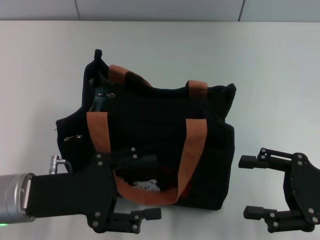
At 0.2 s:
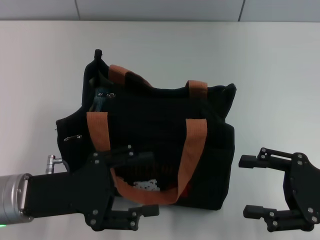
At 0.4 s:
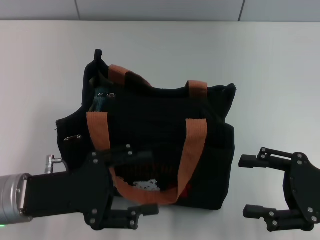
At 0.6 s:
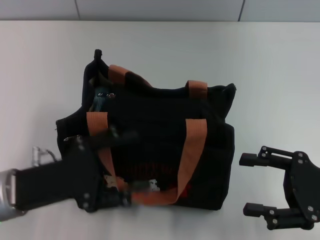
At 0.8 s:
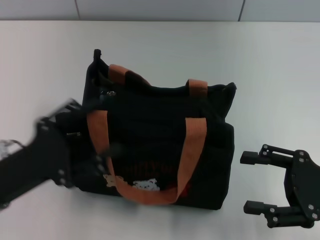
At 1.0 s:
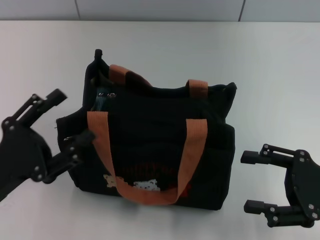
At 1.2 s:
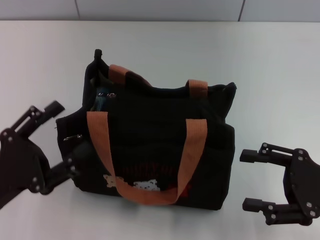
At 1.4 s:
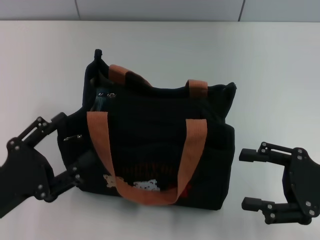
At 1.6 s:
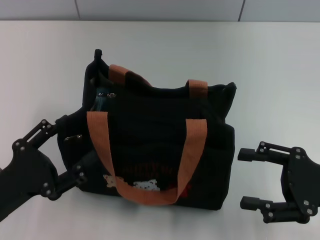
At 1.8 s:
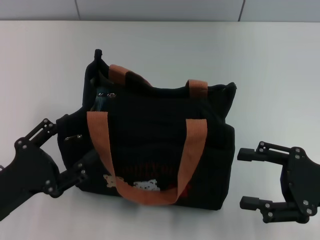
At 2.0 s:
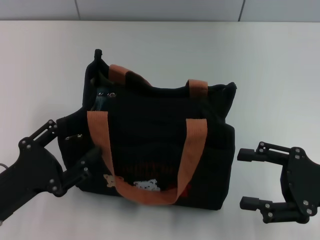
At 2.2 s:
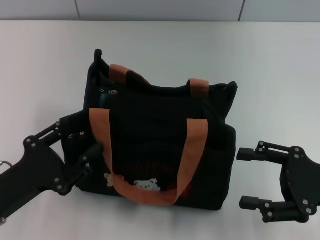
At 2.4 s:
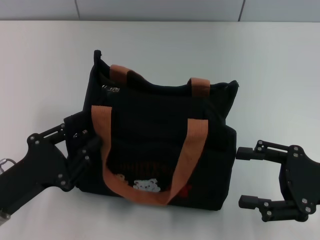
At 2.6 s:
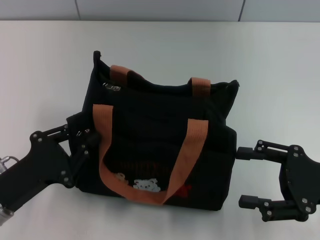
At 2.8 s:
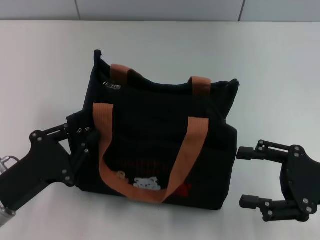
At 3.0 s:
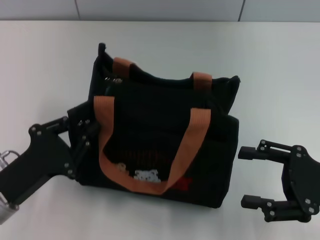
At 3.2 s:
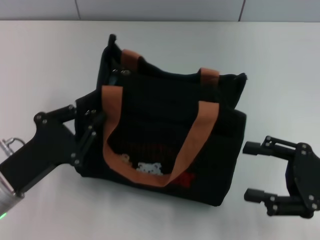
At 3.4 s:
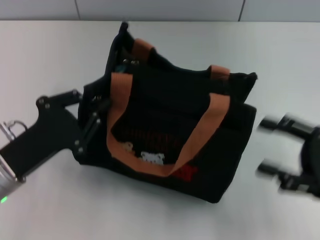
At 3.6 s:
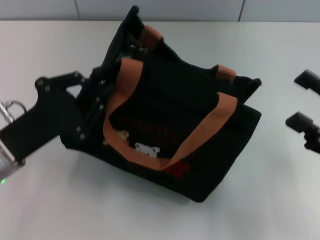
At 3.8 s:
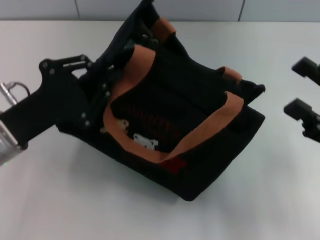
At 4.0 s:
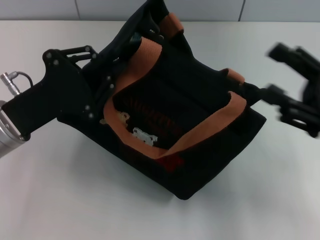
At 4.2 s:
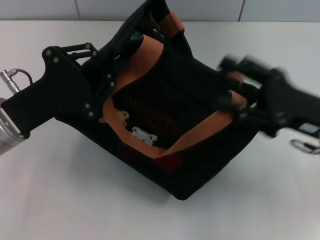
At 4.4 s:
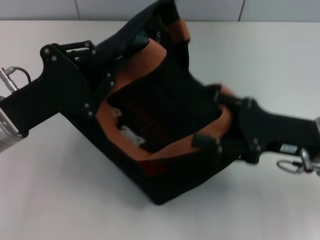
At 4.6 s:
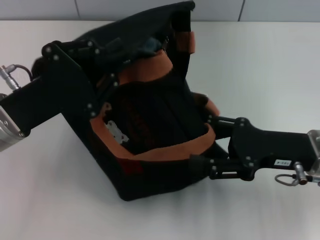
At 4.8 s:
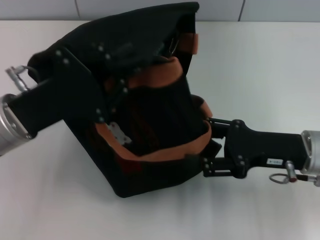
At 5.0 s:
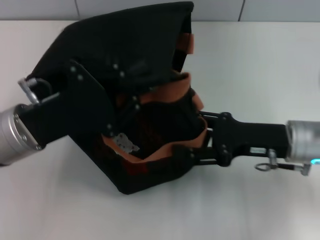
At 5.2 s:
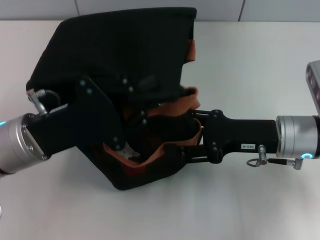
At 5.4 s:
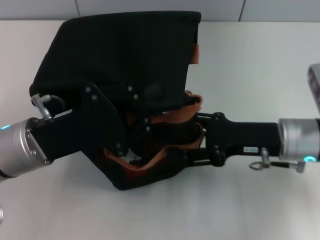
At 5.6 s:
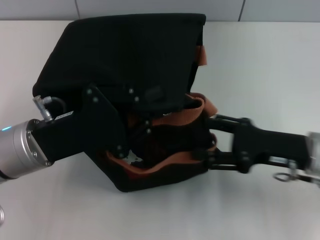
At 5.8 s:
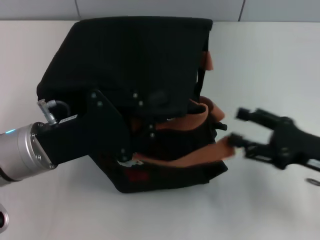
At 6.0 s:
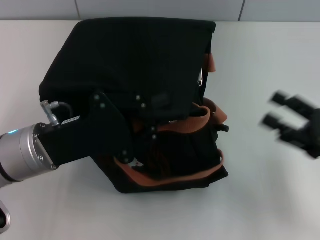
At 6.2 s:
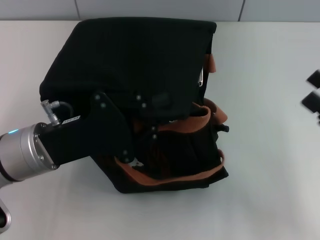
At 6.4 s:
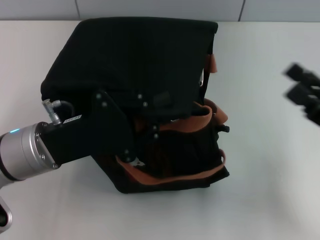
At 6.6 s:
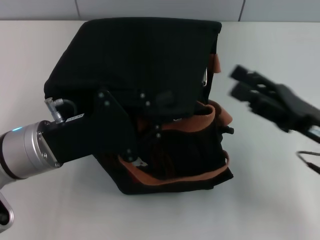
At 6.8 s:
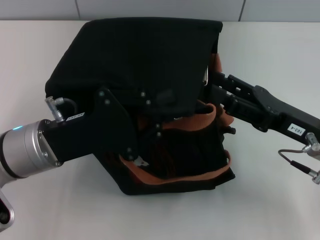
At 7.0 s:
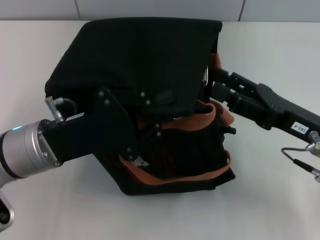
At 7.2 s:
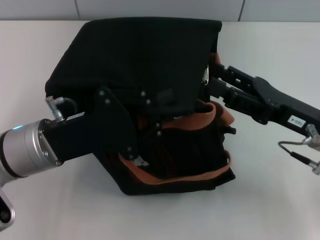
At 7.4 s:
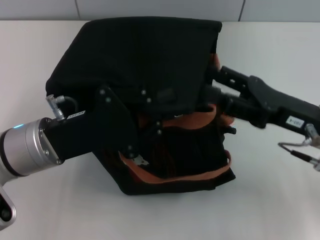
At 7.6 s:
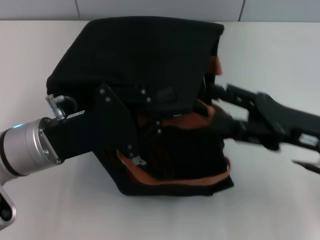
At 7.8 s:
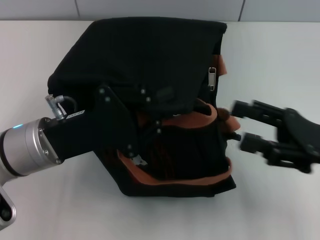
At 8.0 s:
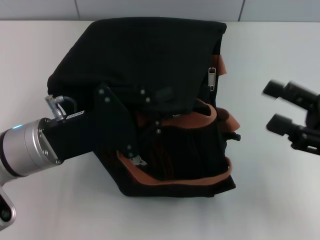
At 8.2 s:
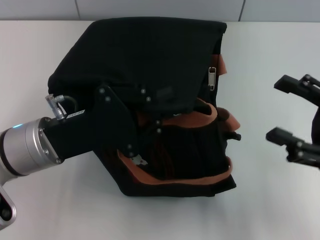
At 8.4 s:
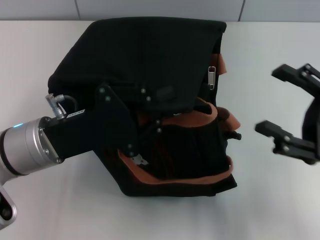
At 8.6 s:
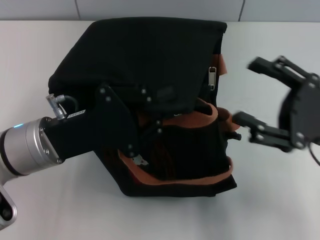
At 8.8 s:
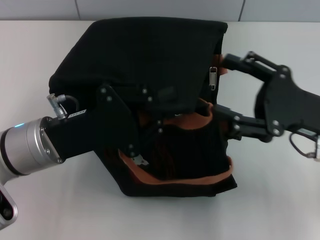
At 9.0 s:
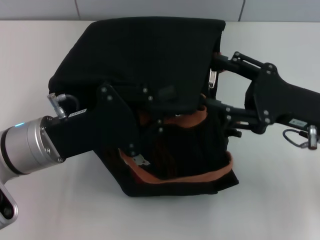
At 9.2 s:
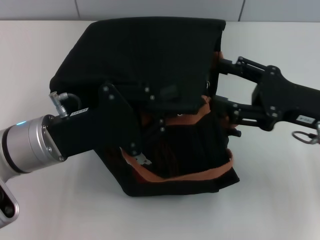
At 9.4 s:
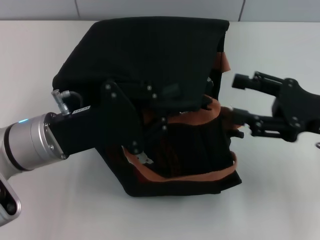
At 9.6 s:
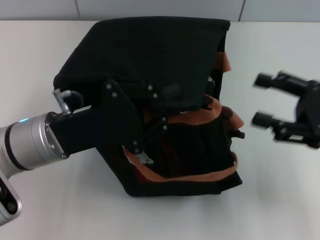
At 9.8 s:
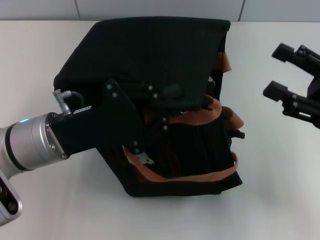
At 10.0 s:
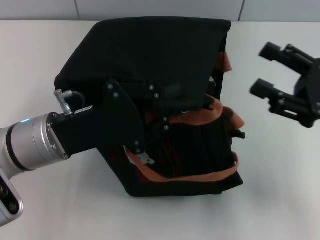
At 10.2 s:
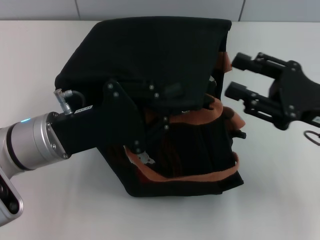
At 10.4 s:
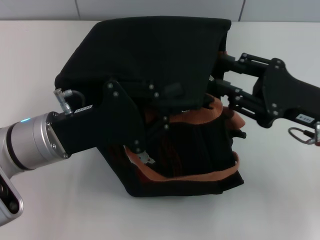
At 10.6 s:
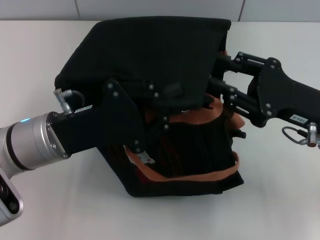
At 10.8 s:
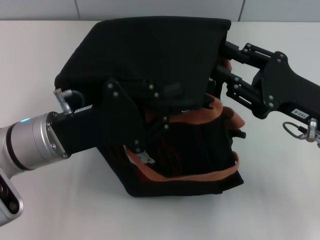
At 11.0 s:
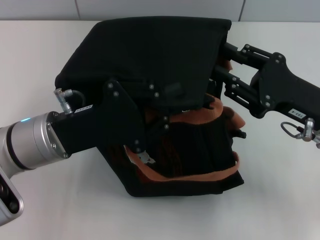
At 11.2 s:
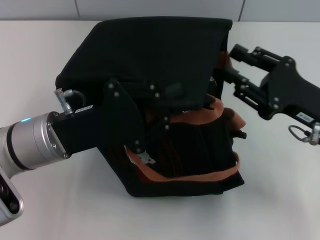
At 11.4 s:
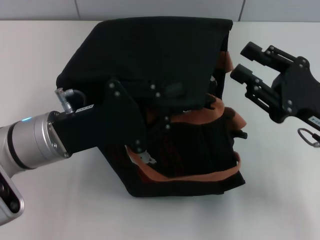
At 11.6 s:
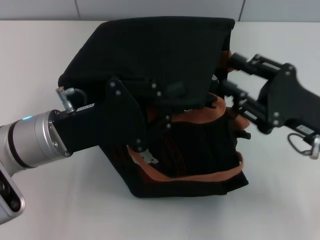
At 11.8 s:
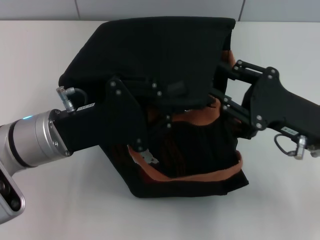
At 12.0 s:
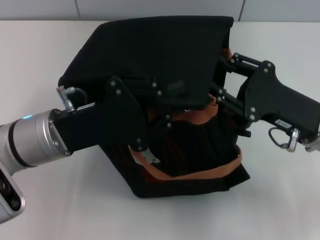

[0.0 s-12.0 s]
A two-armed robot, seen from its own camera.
0.0 to 1.6 s: The left gripper goes roughly 5 cm backward and to the left.
1.6 to 3.0 s: The left gripper closes its fingers.
3.0 to 4.4 s: The left gripper goes about 10 cm forward and upward; the right gripper is displaced to the left and forward by approximately 10 cm.
4.4 to 6.0 s: The right gripper moves to the right, some 10 cm.
6.0 to 7.6 s: The right gripper moves to the left, approximately 5 cm.
10.4 to 12.0 s: The grippers stay close to where they were, moving slightly.

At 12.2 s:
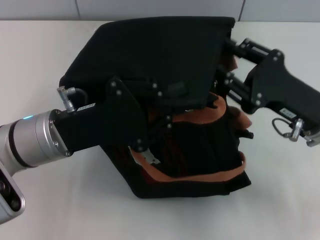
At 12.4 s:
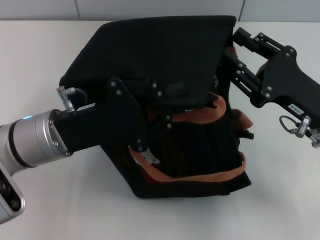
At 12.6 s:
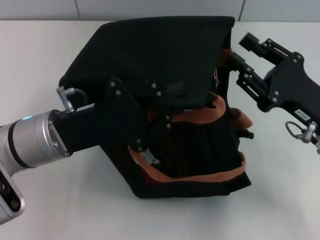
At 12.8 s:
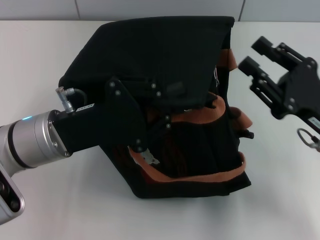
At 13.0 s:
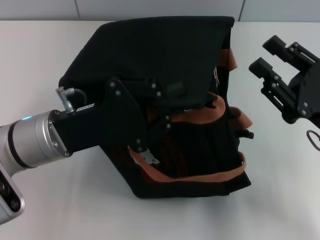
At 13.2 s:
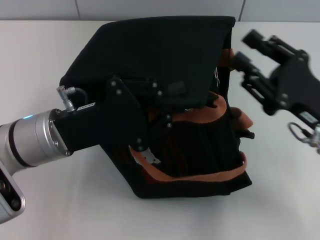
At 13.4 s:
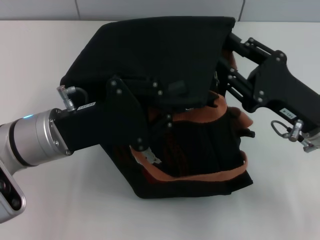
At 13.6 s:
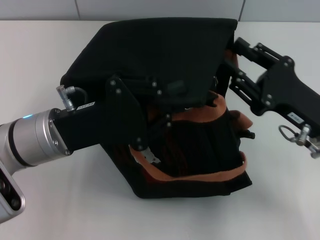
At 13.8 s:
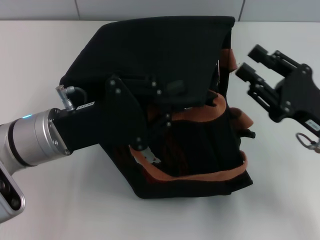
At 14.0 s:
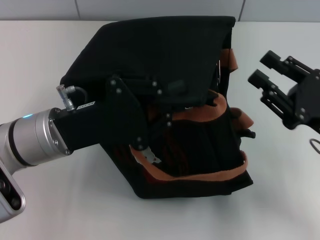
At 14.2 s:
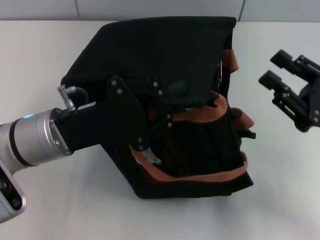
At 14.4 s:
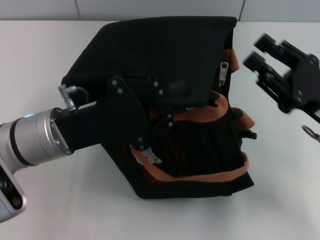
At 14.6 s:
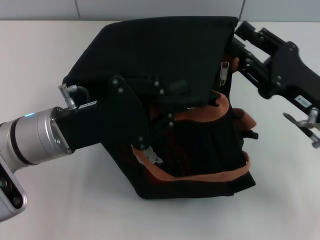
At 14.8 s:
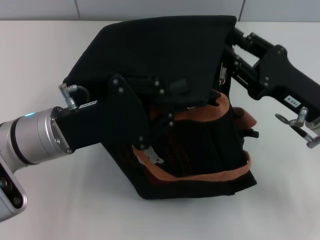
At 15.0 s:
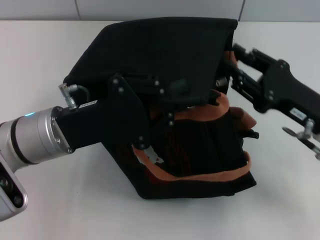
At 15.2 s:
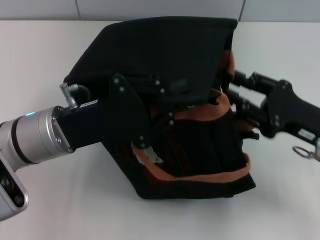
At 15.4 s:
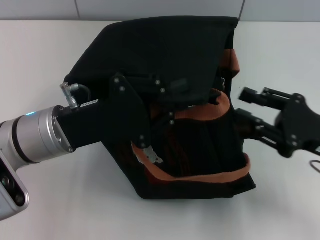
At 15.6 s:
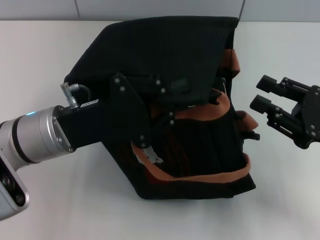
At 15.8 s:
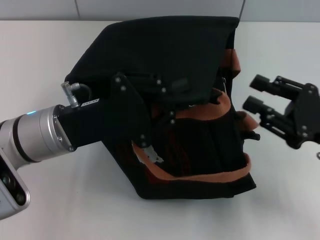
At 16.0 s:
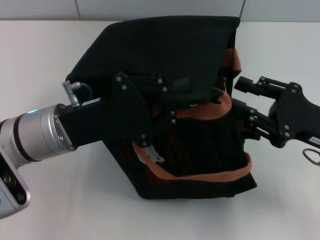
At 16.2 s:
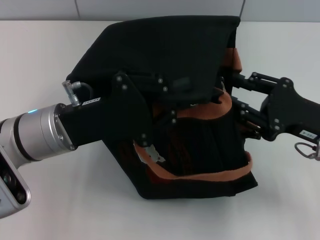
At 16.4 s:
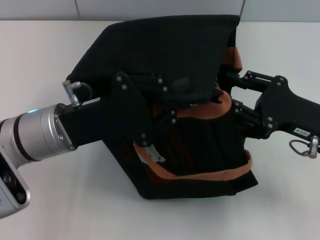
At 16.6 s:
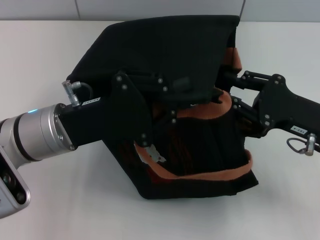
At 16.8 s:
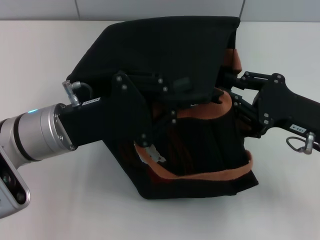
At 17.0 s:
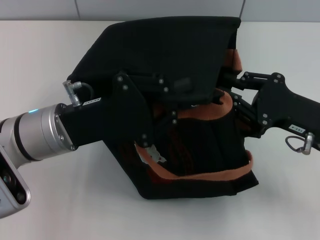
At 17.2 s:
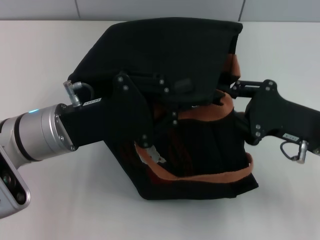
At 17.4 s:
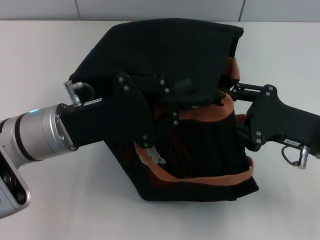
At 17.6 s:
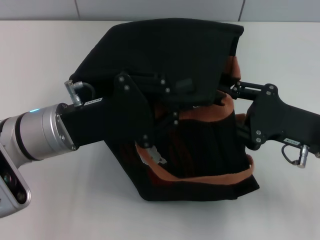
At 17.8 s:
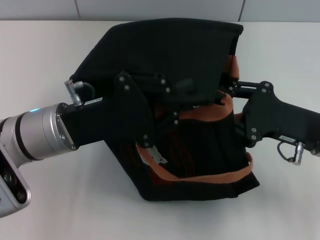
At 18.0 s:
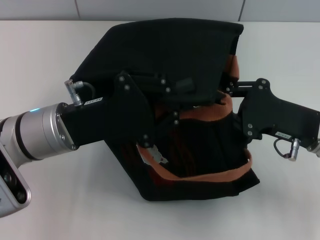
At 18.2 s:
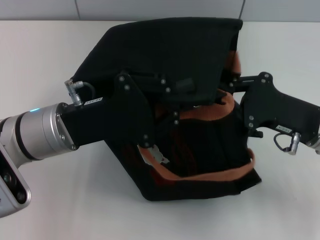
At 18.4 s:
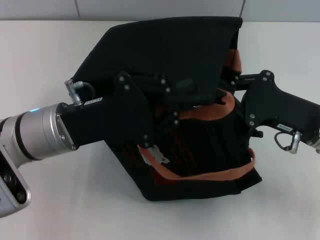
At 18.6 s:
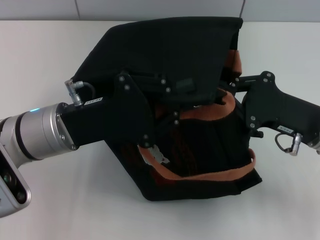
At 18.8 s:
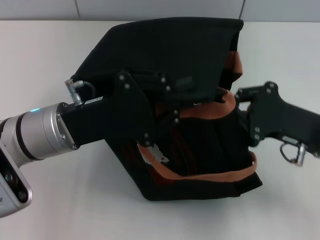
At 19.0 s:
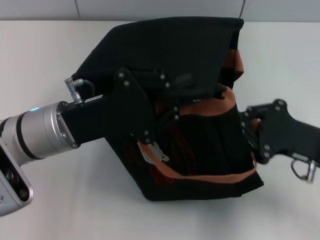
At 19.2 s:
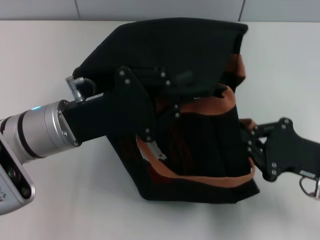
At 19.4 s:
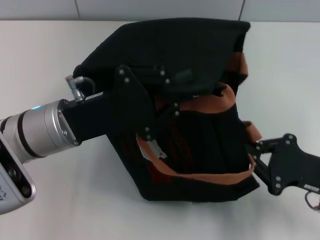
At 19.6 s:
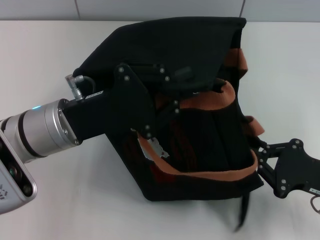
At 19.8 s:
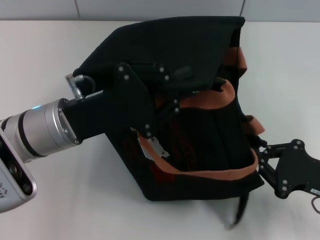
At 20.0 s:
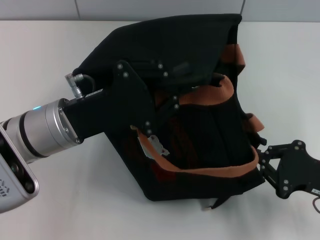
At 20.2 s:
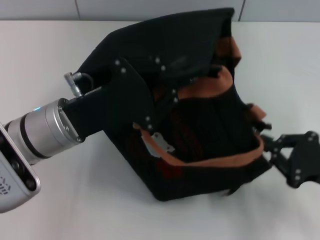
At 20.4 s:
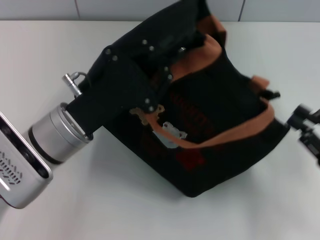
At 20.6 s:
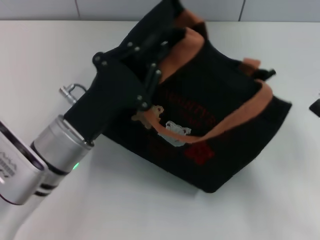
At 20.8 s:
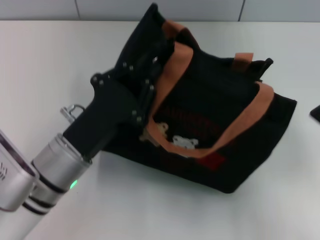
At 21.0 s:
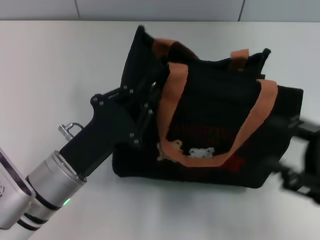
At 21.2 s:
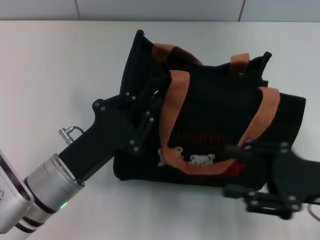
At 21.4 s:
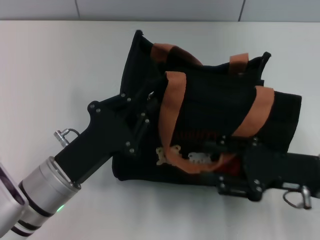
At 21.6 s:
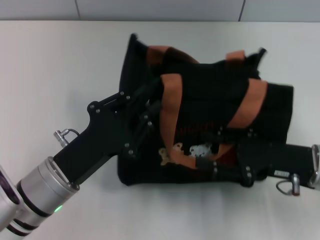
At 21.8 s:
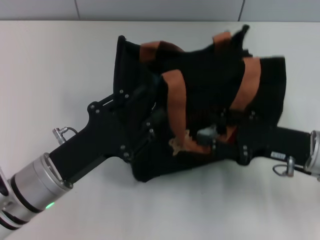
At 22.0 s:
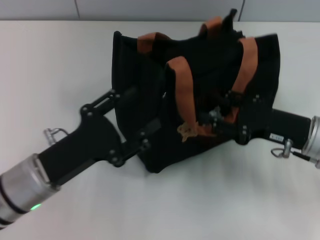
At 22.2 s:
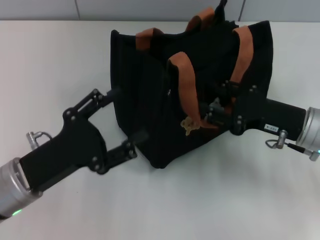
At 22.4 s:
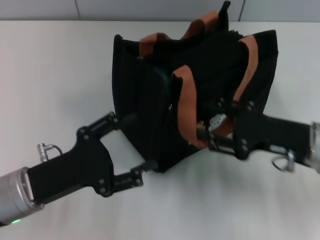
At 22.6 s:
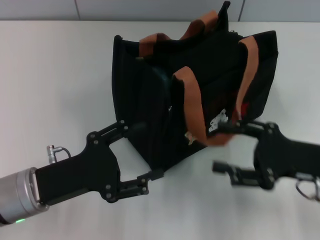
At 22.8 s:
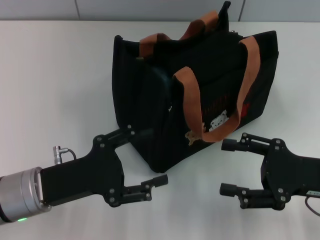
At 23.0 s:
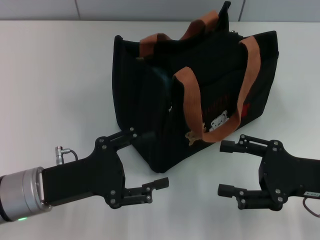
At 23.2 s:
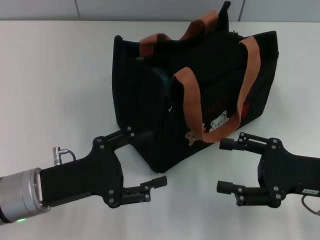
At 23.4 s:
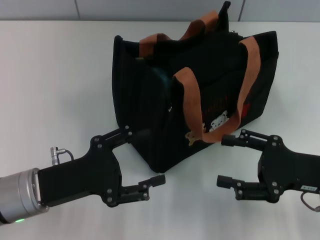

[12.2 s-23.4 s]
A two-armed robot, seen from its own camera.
Step, 12.2 to 20.4 s: Pull open the zipper with your right hand.
Step, 20.6 to 21.8 s: Grab the bag with your left hand.
12.2 to 15.4 s: There are only small adjustments of the grippers.
15.4 to 18.6 s: There are only small adjustments of the grippers.
18.6 to 20.2 s: The right gripper moves to the right and backward, approximately 10 cm.
20.2 to 21.8 s: The left gripper moves backward and downward, some 10 cm; the right gripper shifts some 10 cm to the left and forward, and opens its fingers.
21.8 to 23.4 s: The left gripper opens its fingers.
